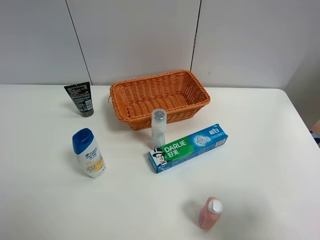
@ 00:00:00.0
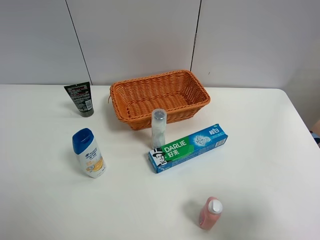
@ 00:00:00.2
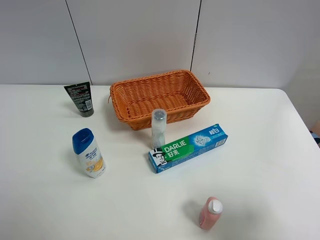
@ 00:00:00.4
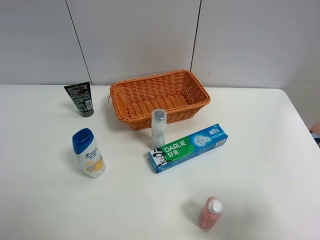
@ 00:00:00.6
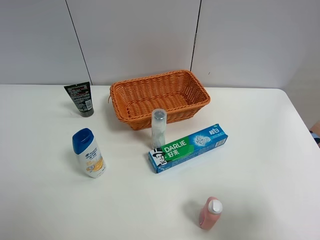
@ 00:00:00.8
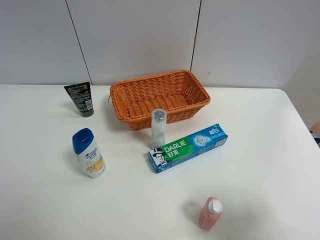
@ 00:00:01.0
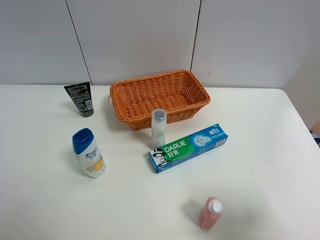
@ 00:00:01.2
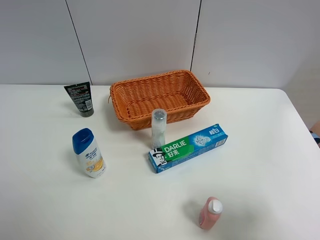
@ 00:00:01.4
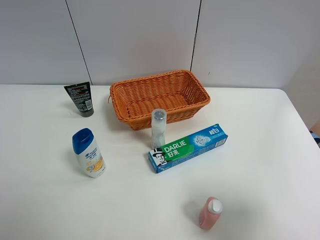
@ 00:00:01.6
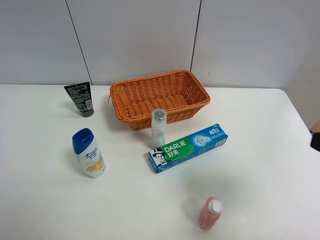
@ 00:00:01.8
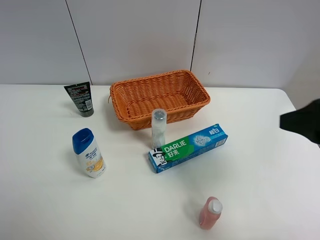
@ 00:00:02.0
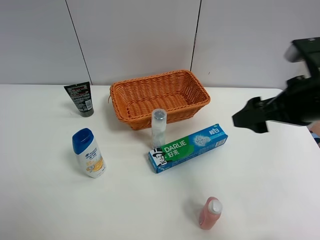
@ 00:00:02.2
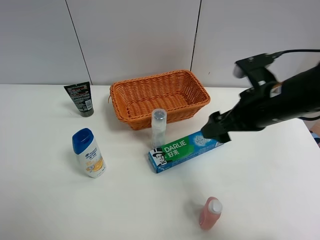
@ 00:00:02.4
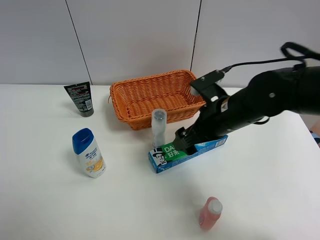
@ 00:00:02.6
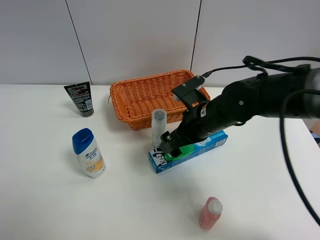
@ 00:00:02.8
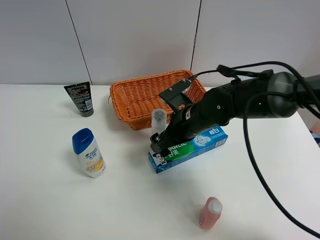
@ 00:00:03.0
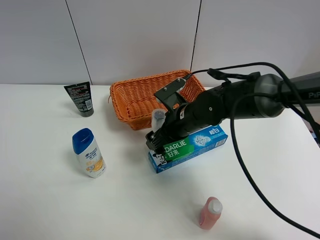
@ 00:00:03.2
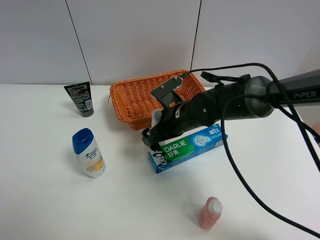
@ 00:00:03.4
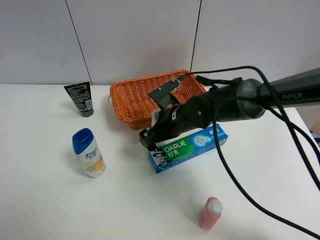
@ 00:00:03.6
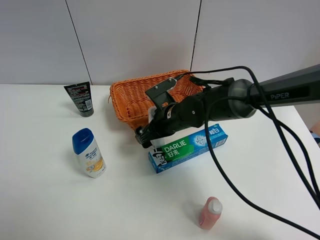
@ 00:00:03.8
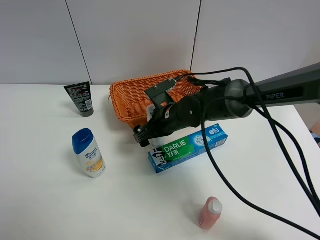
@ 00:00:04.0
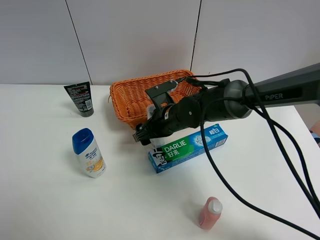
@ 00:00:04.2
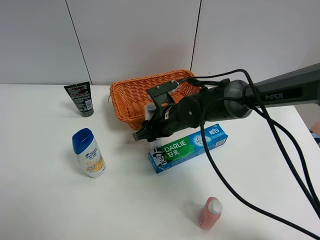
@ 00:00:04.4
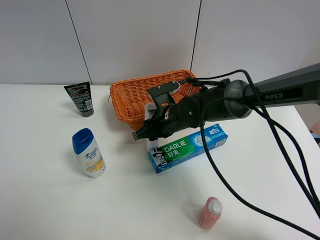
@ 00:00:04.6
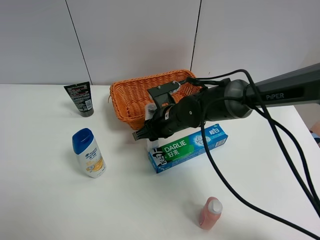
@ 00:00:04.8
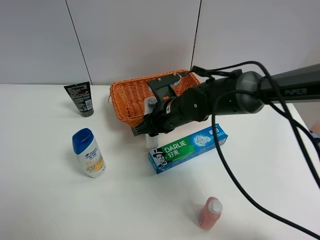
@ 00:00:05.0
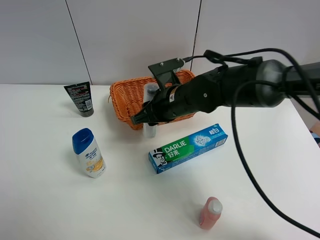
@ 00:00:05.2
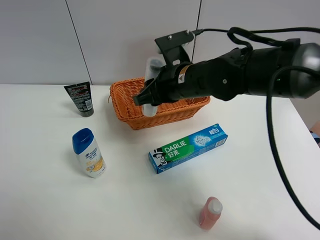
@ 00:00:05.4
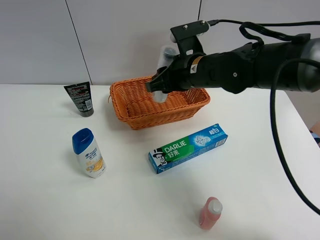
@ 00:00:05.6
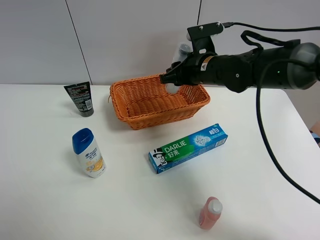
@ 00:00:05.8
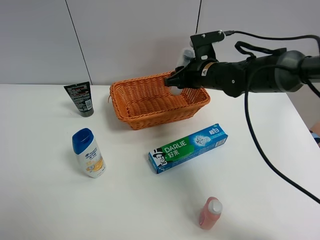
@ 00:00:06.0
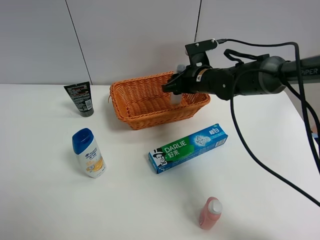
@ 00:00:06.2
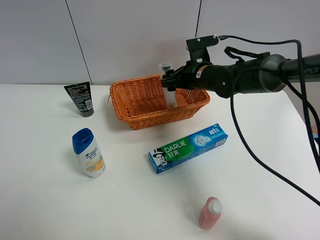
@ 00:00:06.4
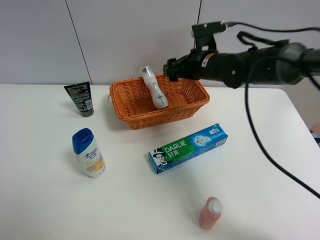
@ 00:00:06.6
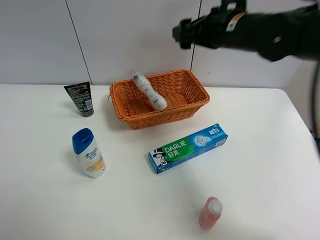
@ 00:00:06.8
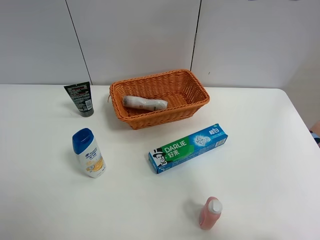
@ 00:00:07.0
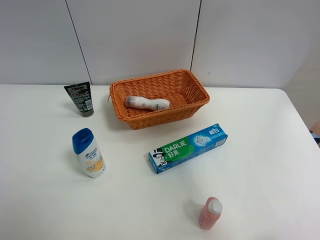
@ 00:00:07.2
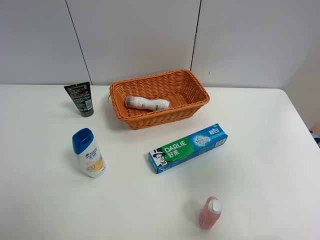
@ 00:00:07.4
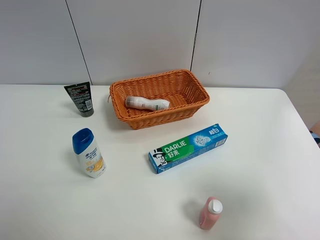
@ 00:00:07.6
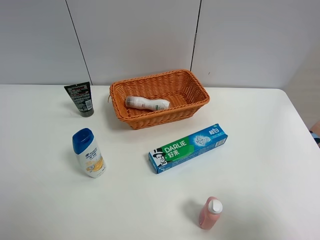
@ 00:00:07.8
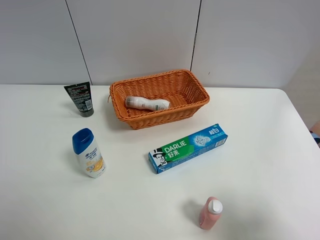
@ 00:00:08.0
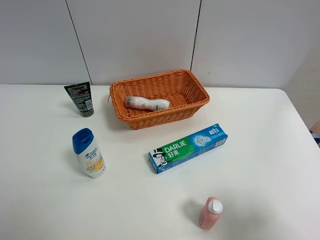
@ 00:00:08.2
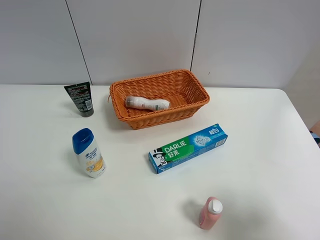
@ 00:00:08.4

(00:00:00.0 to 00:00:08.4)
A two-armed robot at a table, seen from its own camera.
Task of the whole recording: Place the object closest to the toothpaste in the basket.
Step, 00:00:00.0 - 00:00:04.6: Grasp the cleaning agent with right gripper.
Step, 00:00:04.8 - 00:00:06.6: Place the cleaning agent in the basket with right gripper.
00:00:00.0 - 00:00:01.4: Neither gripper changes place.
00:00:01.4 - 00:00:02.8: The right gripper shifts some 35 cm forward and to the left.
00:00:02.8 - 00:00:04.2: The right gripper shifts about 5 cm to the left, and closes its fingers.
00:00:04.2 - 00:00:05.6: The right gripper is displaced upward by about 10 cm, and closes.
00:00:05.6 - 00:00:07.0: The right gripper travels upward, to the right and backward by about 25 cm, and opens its fingers.
00:00:07.0 - 00:00:08.4: The right gripper goes roughly 30 cm backward and downward.
